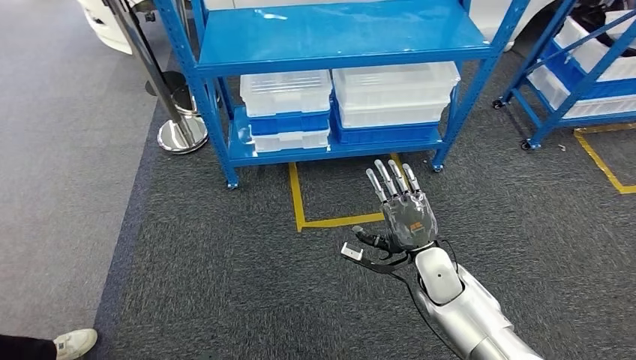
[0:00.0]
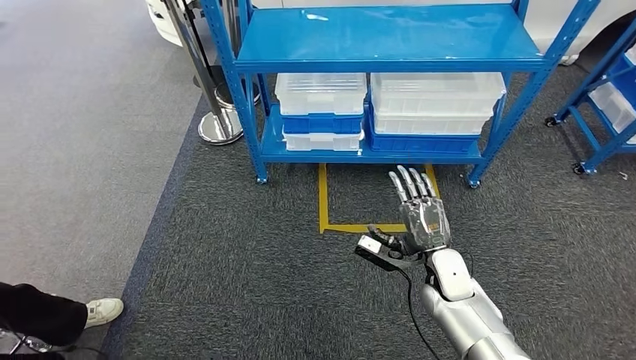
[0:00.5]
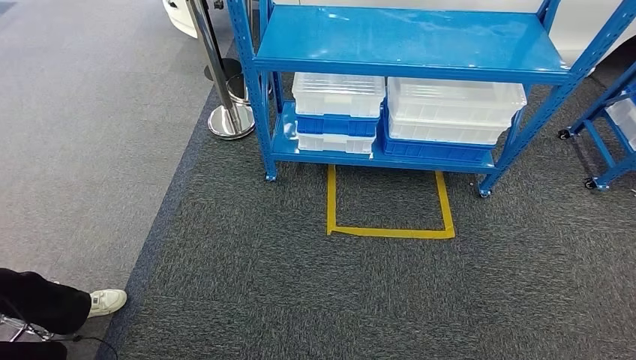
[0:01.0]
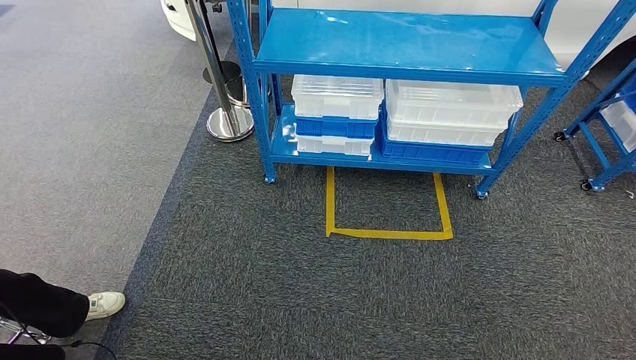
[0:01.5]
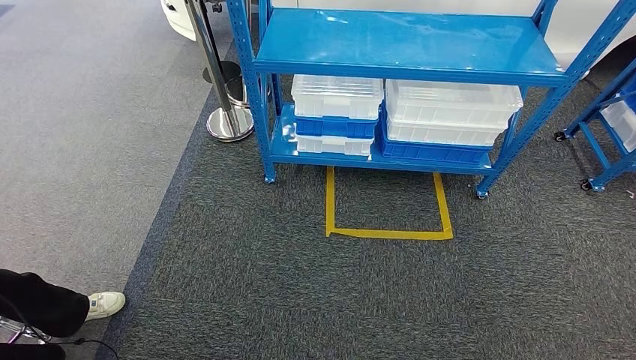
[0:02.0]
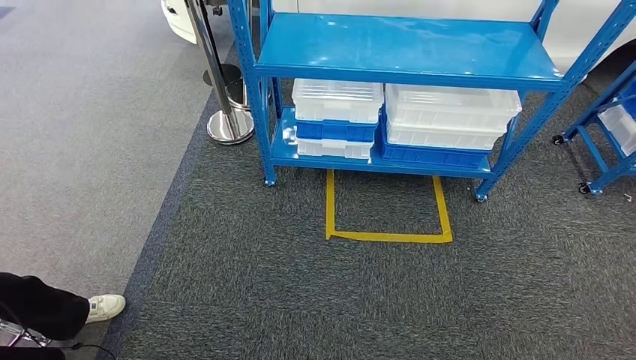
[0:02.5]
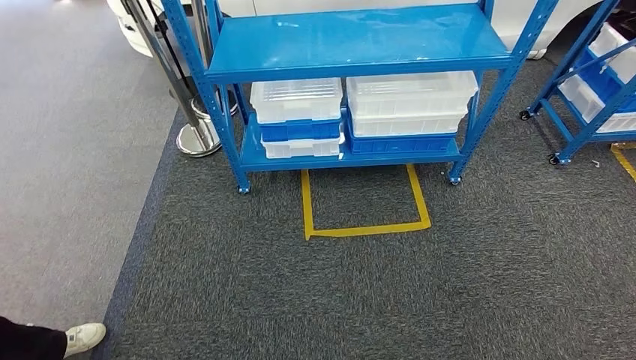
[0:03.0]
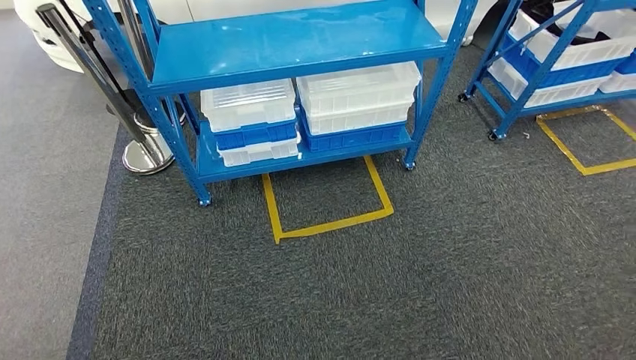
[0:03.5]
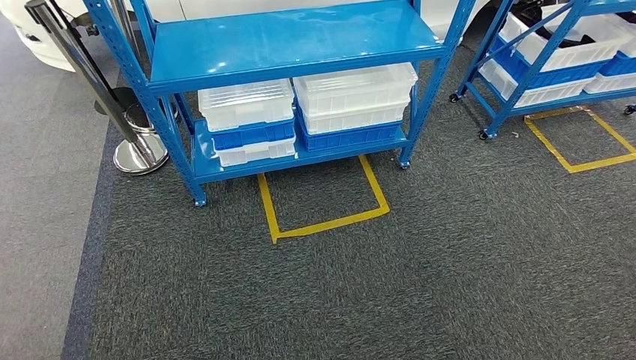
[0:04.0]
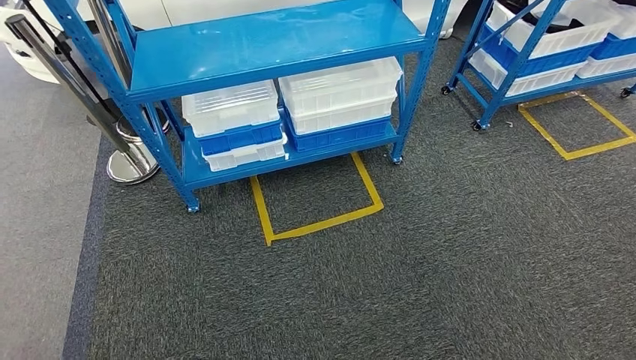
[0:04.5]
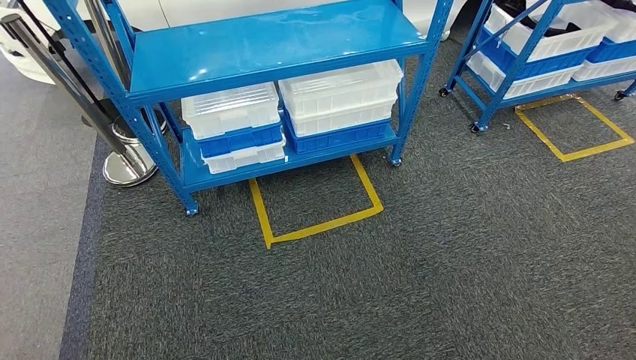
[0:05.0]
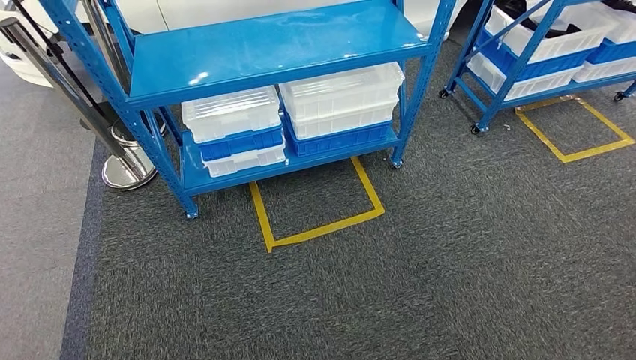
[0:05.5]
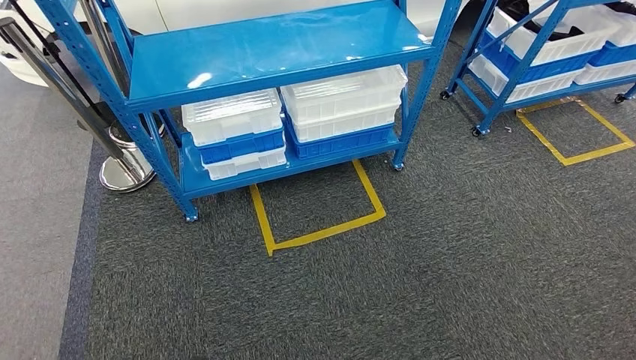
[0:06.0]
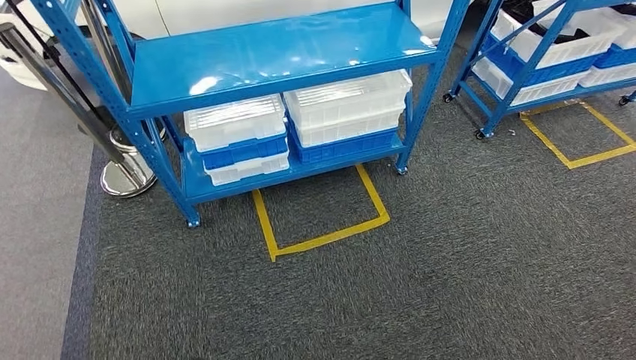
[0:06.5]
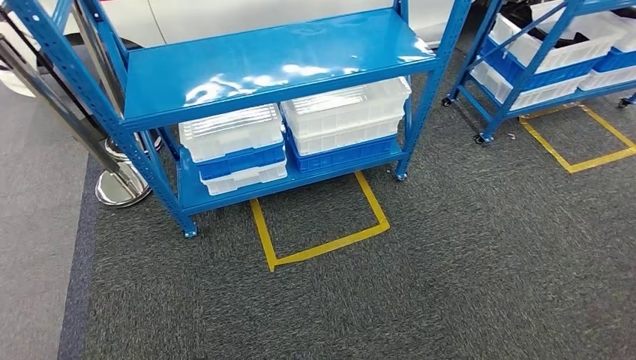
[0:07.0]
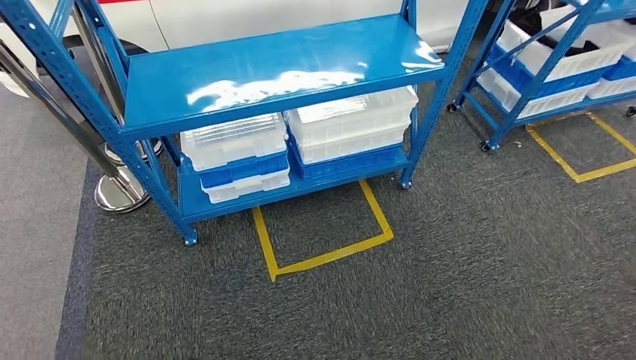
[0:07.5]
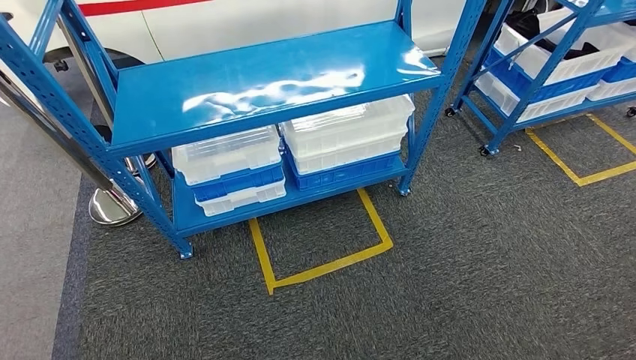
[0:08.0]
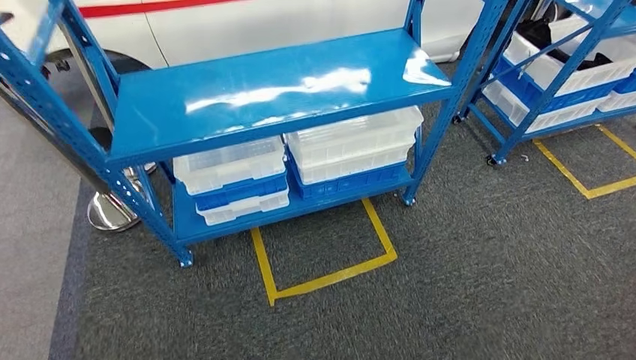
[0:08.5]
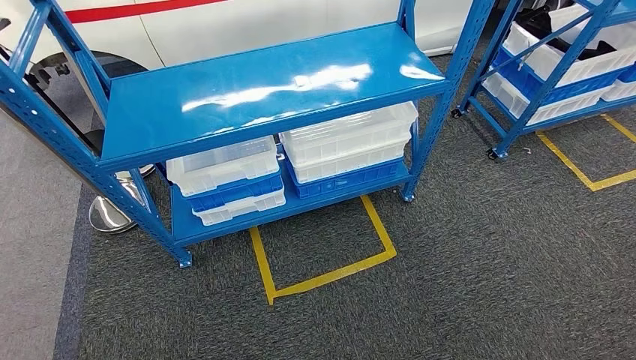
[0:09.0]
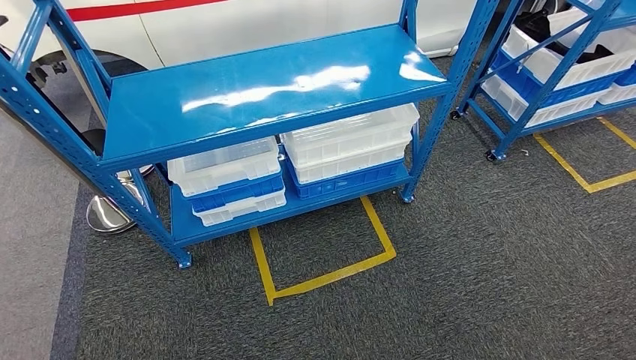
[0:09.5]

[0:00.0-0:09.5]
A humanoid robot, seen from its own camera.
Step, 0:00.0 to 0:09.0: Return to the initial position at the shelf.
